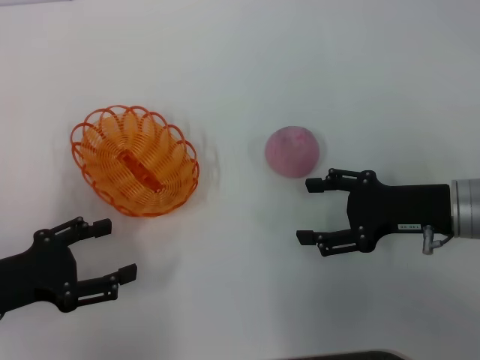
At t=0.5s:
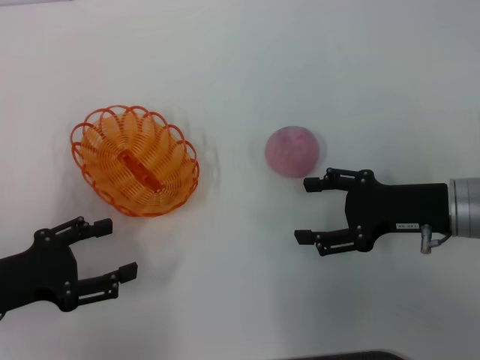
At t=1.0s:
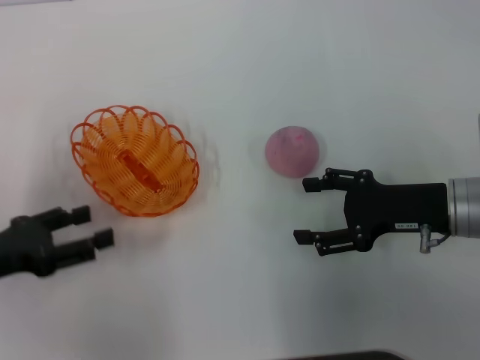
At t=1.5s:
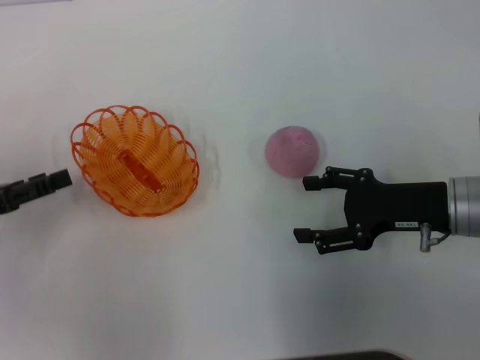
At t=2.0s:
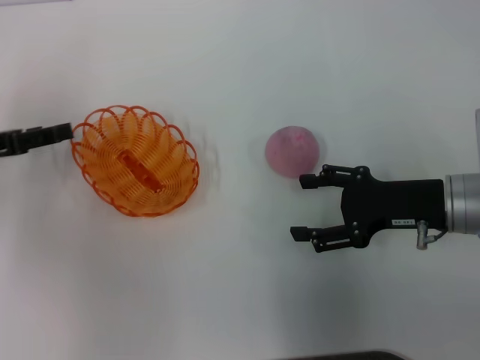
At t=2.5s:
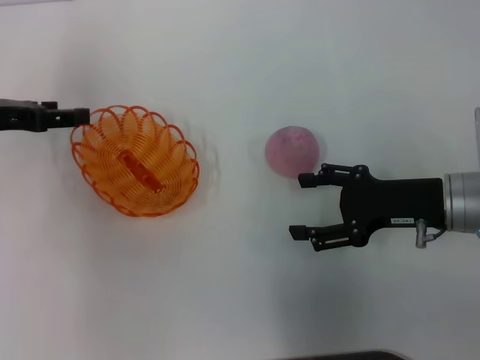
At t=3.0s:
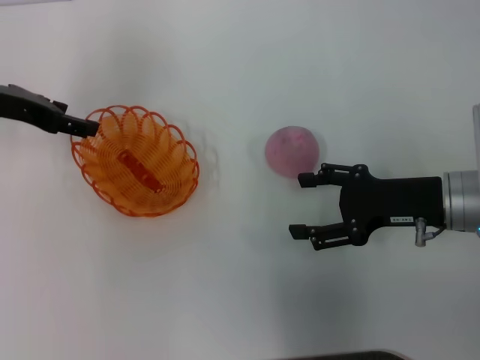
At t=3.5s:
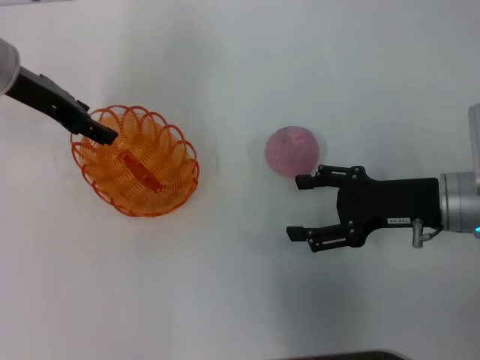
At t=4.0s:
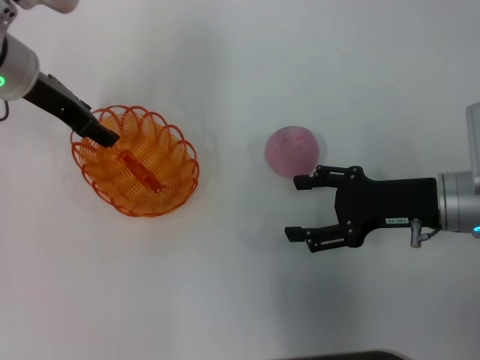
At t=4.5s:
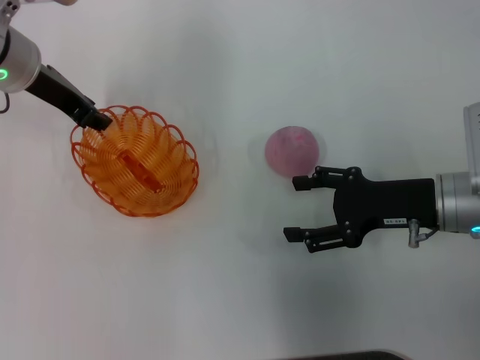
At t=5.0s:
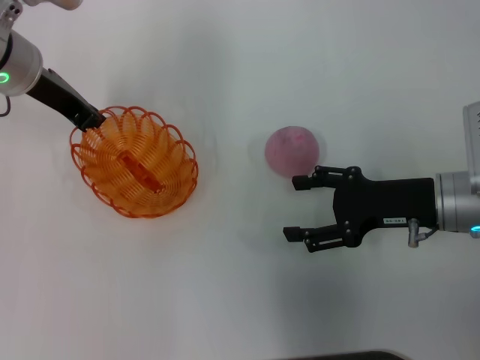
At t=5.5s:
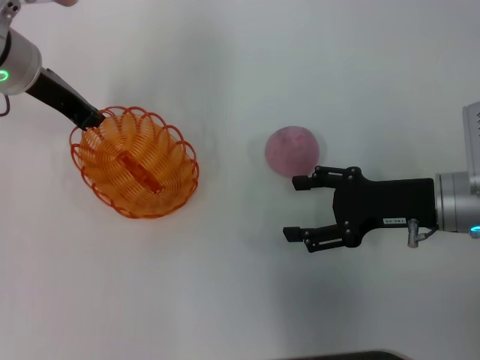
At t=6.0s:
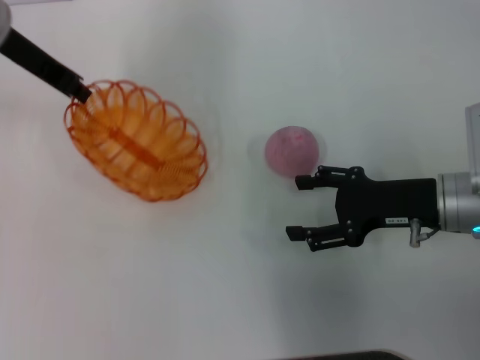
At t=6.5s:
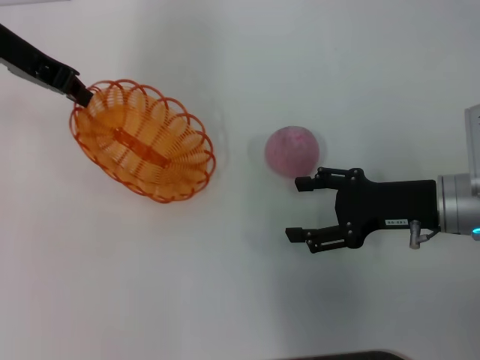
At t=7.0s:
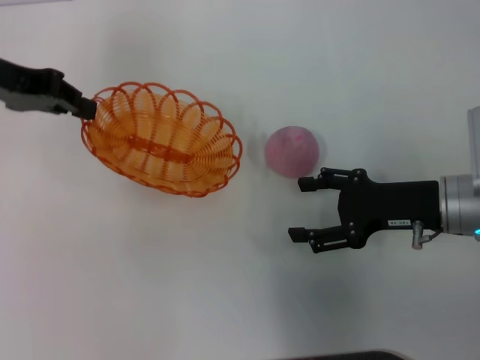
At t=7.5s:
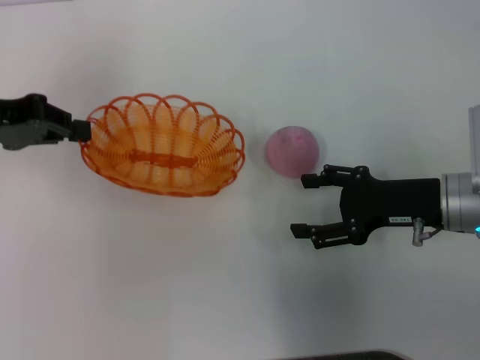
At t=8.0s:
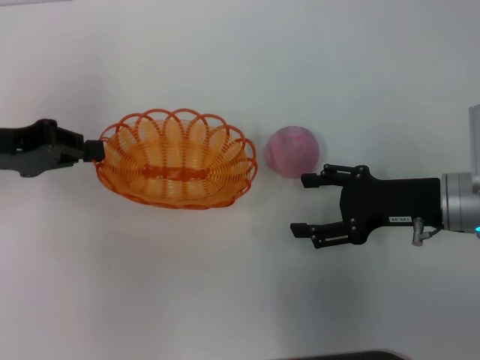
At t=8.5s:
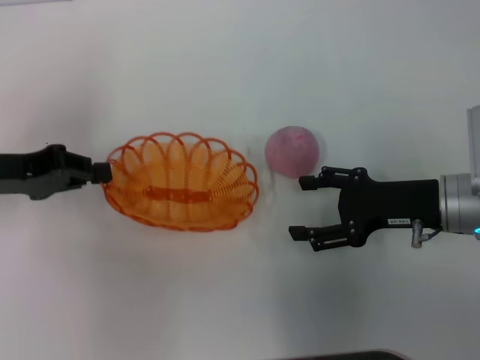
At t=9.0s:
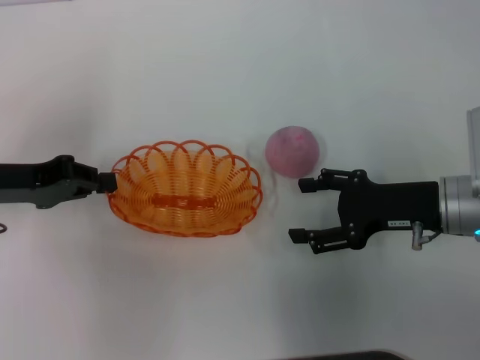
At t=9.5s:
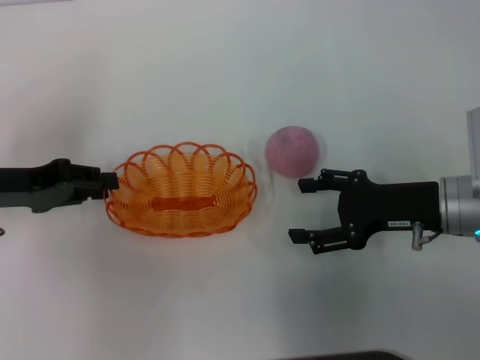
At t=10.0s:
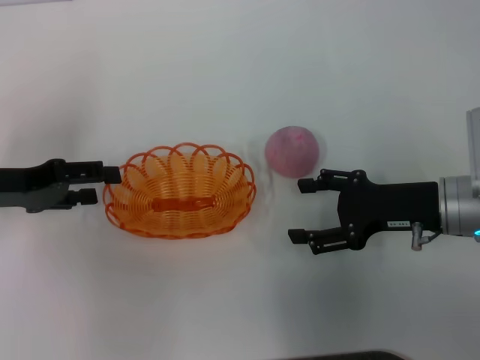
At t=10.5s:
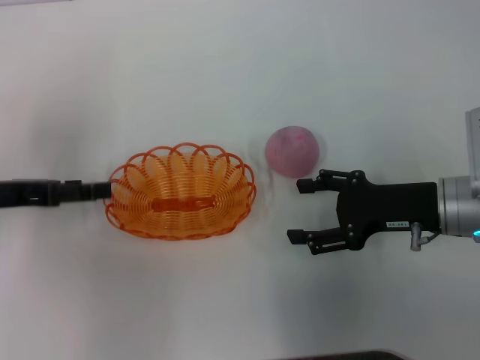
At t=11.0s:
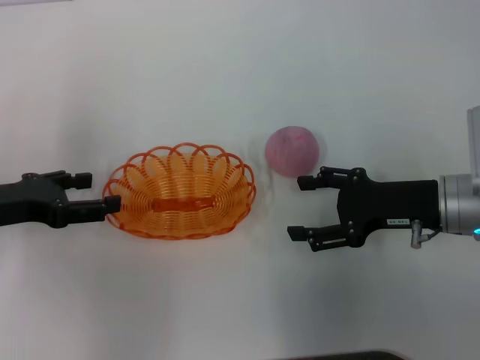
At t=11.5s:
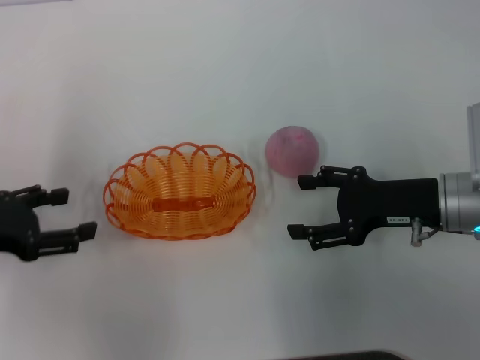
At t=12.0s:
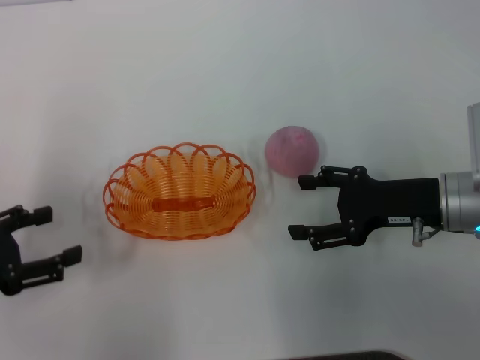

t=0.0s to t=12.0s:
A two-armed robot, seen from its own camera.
Step, t=0.0s to t=6.0s: Pick up the basket with the left gripper.
Step, t=6.5s to t=10.0s: Place the basket in the center of view with the left gripper.
t=0.0s to t=2.0s: The left gripper moves forward, about 10 cm.
t=2.0s to t=4.0s: The left gripper travels to the right, forward and upward by some 15 cm.
t=4.0s to t=6.0s: The left gripper ends up roughly 5 cm from where it was, and closes its fingers.
t=6.0s to t=8.0s: The left gripper shifts about 15 cm backward, to the left and downward.
t=8.0s to t=10.0s: The left gripper opens up.
t=10.0s to t=12.0s: The left gripper shifts roughly 10 cm backward, and opens up.

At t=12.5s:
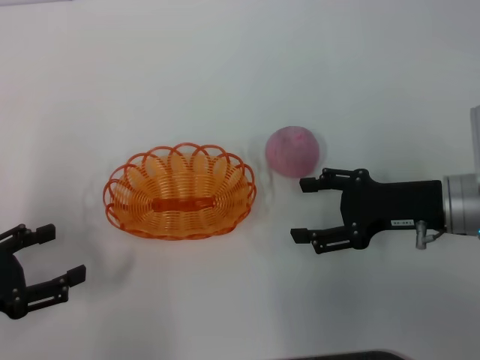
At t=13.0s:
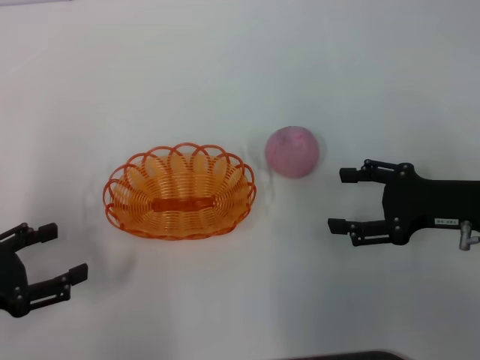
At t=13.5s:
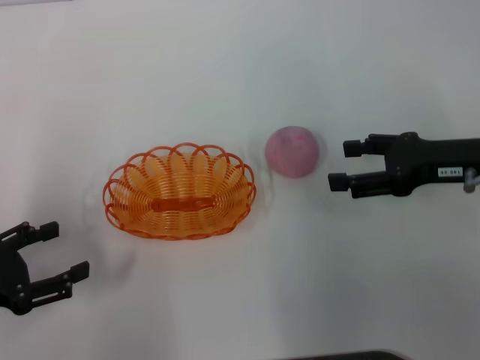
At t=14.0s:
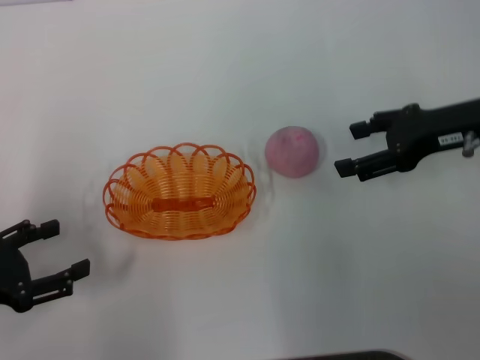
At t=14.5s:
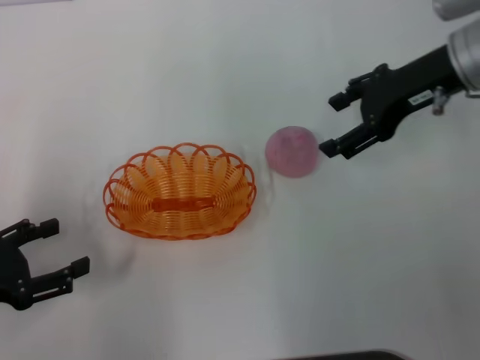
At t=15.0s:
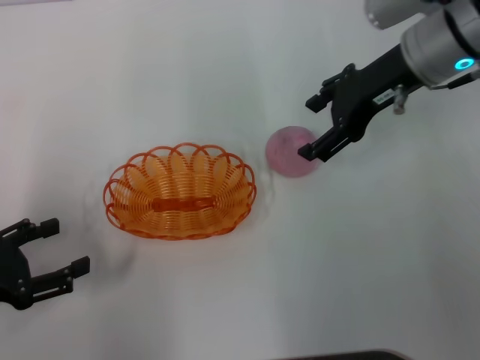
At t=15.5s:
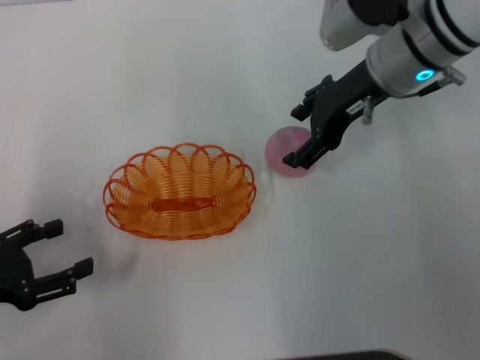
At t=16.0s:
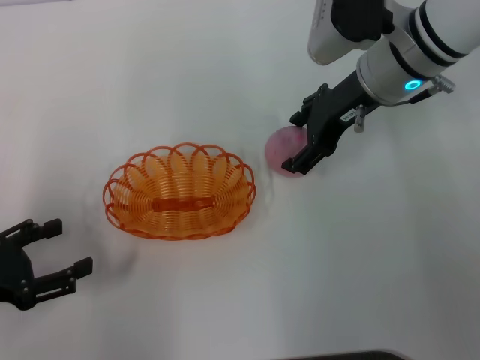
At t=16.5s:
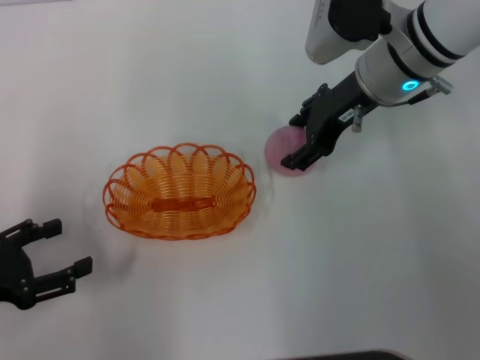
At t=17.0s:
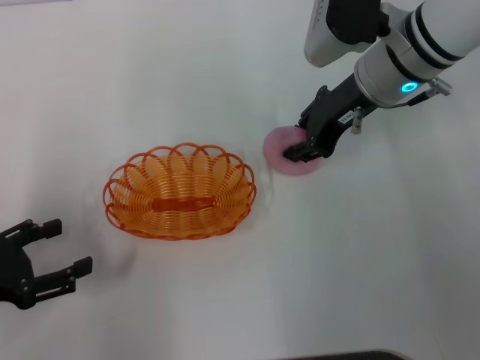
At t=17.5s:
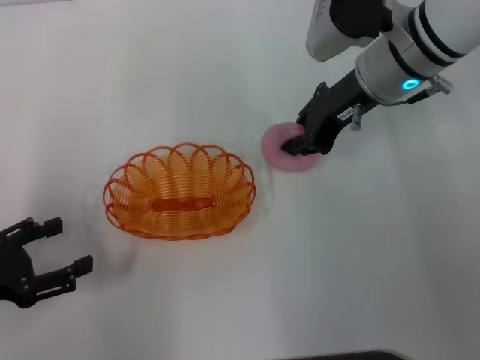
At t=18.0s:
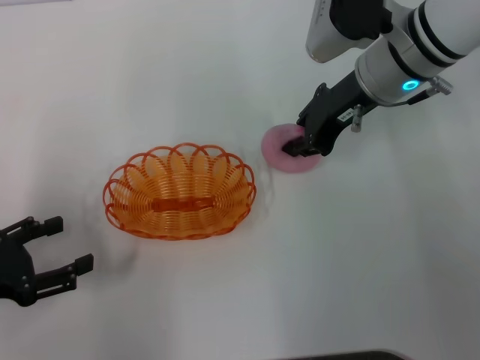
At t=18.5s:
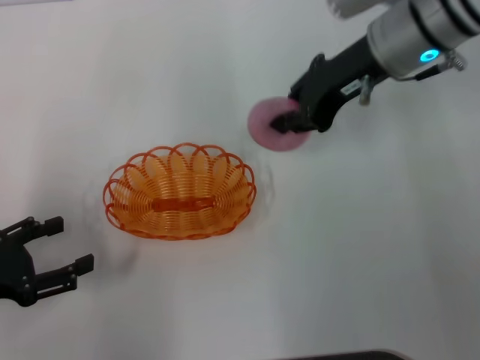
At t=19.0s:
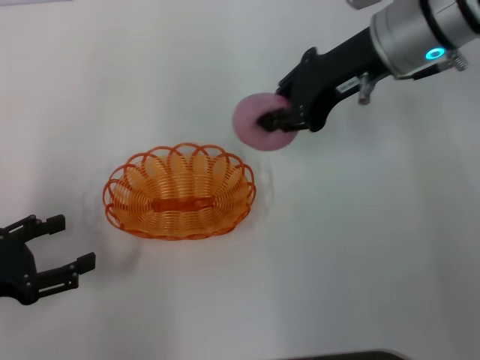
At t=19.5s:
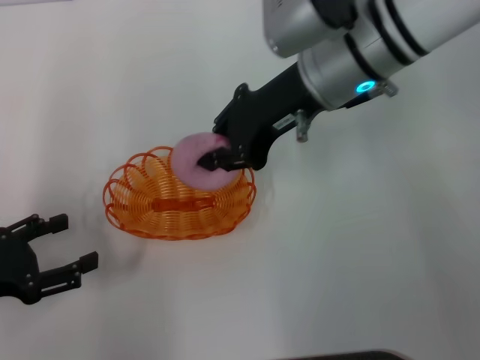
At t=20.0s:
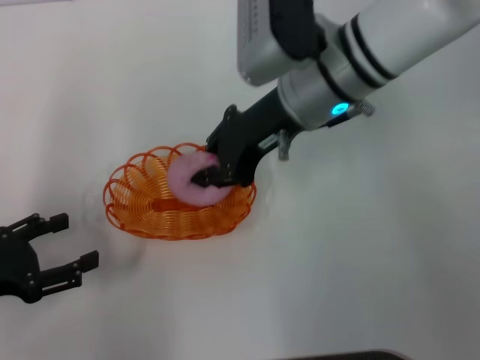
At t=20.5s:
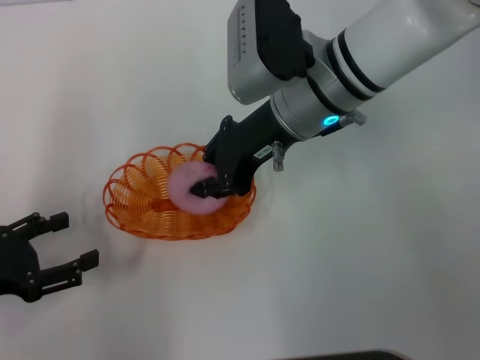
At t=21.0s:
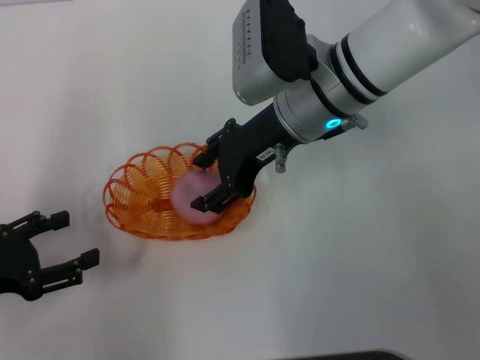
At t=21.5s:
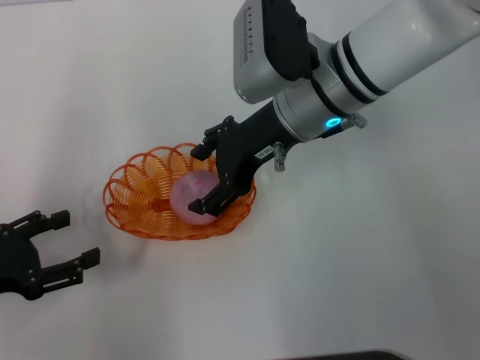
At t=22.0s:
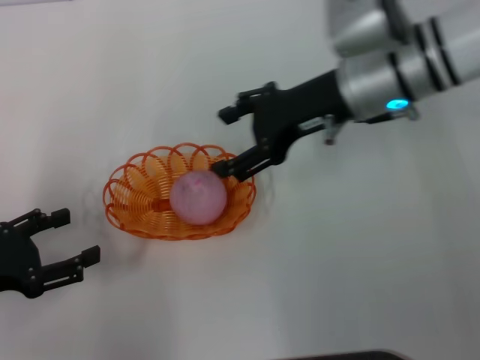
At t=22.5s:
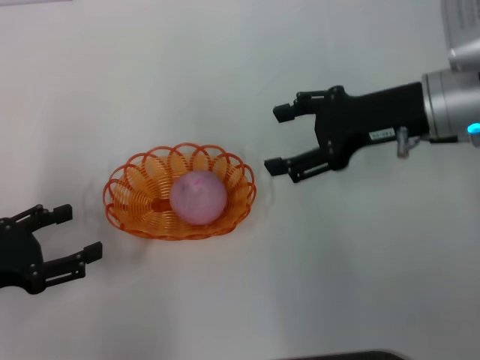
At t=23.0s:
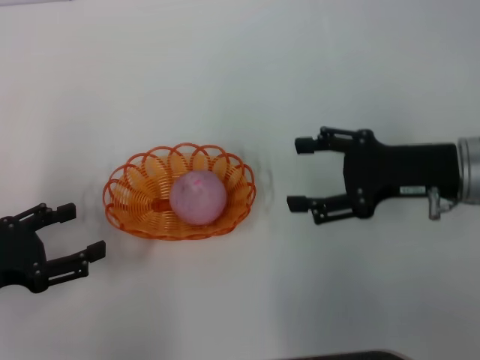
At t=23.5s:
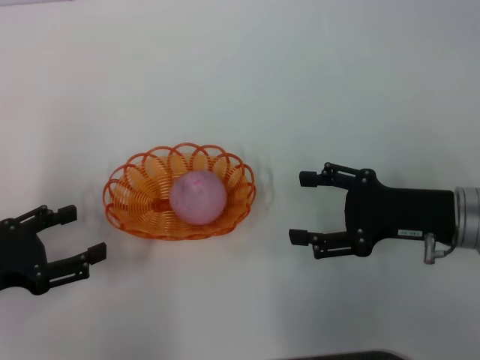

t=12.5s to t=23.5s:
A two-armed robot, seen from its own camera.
Step, t=12.5s to t=18.5s: Pick up the peach with the right gripper.
Step, t=19.0s to t=22.5s: Place the peach into the basket with the right gripper.
t=12.5s to t=14.5s: The right gripper is displaced upward and forward by some 15 cm.
t=14.5s to t=16.0s: The right gripper shifts roughly 5 cm to the left.
t=16.0s to t=18.0s: The right gripper closes.
t=18.0s to t=20.0s: The right gripper travels to the left by some 5 cm.
t=20.0s to t=21.5s: The right gripper opens.
t=21.5s to t=23.5s: The right gripper shifts some 20 cm to the right, backward and downward.

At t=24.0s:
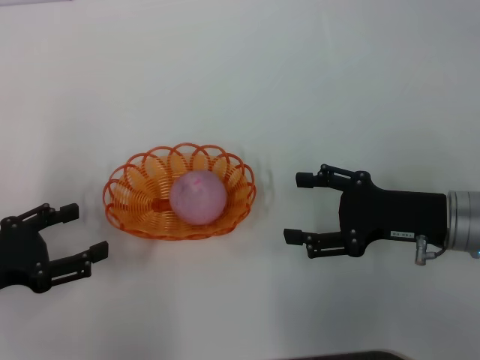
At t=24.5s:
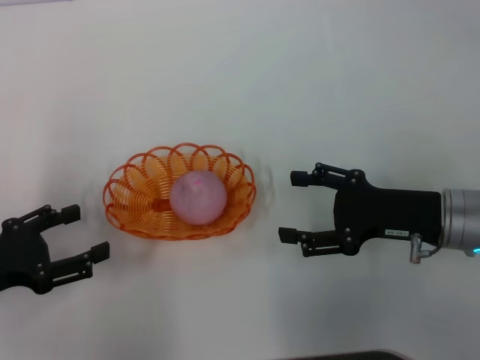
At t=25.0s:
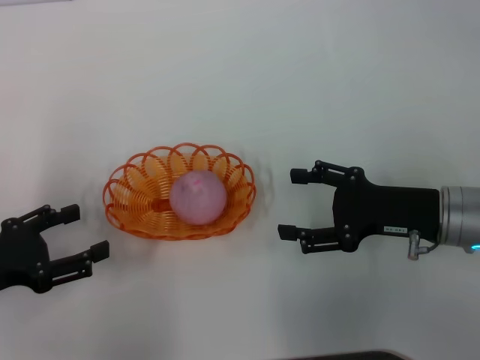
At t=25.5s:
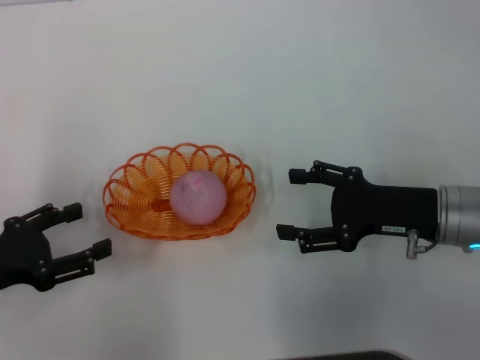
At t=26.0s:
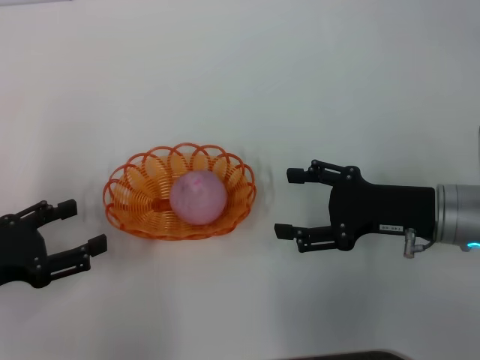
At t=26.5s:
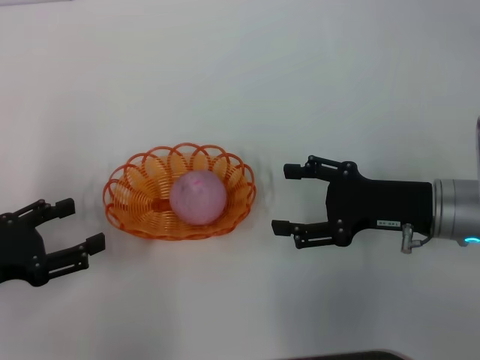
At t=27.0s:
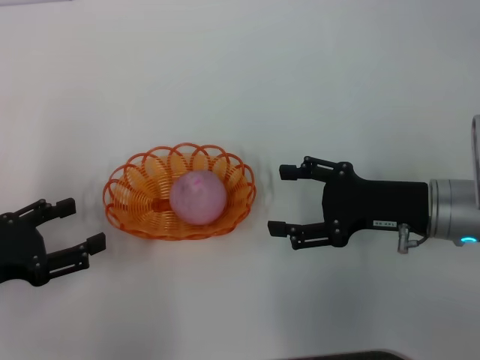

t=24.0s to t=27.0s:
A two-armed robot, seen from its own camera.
t=24.0s to t=25.5s: Neither gripper changes place.
t=25.5s to t=27.0s: Both grippers stay about where they are.
